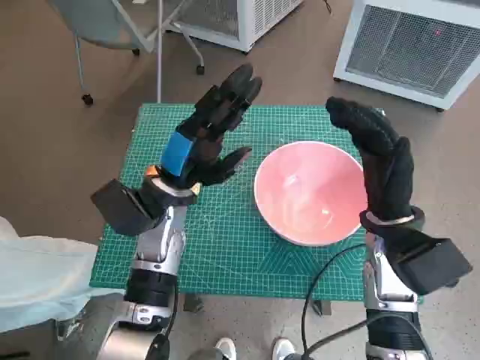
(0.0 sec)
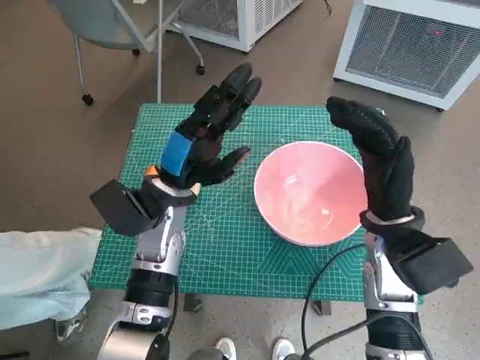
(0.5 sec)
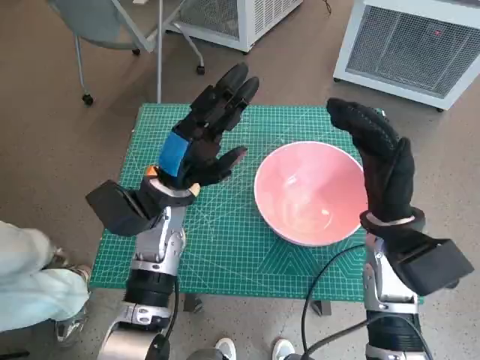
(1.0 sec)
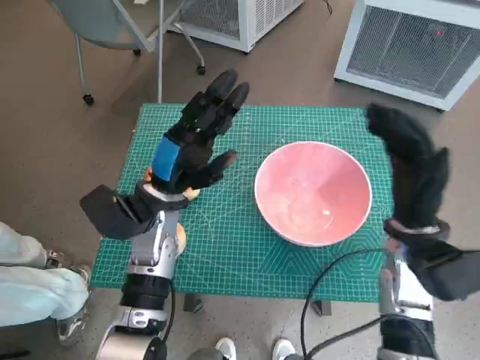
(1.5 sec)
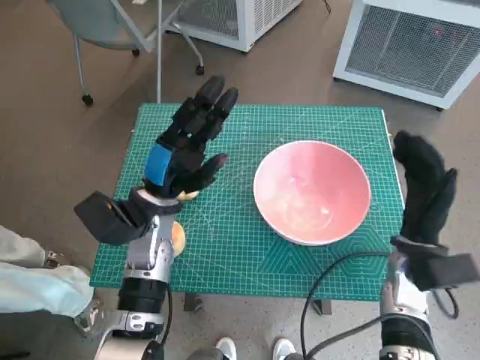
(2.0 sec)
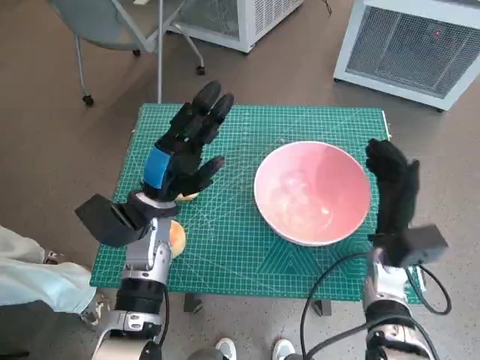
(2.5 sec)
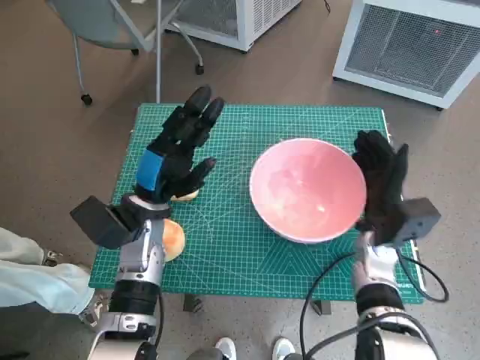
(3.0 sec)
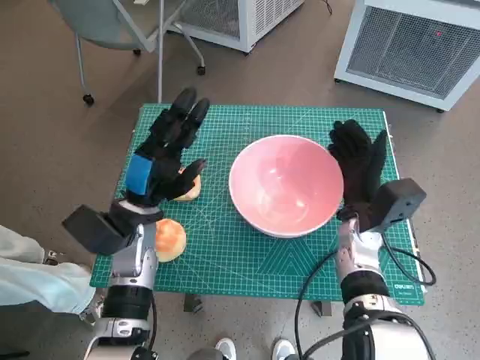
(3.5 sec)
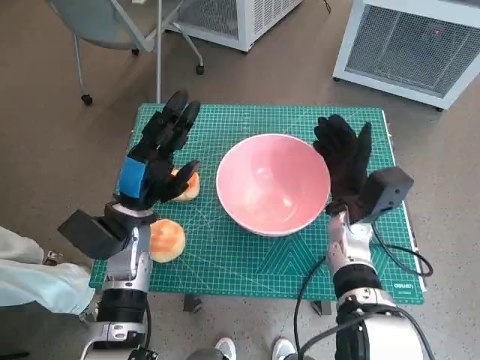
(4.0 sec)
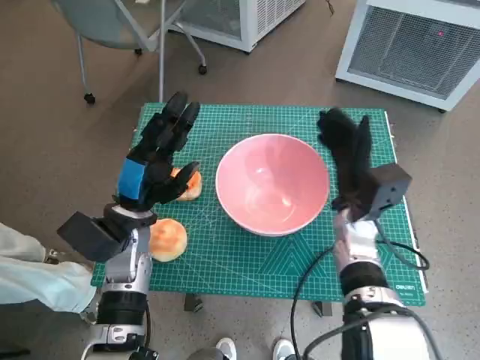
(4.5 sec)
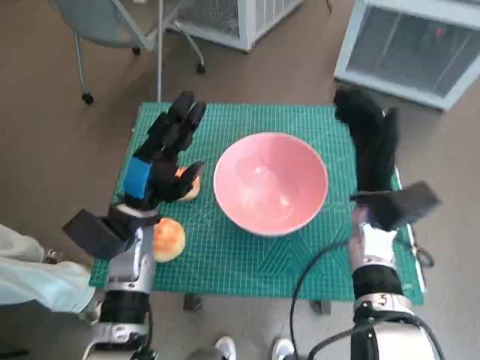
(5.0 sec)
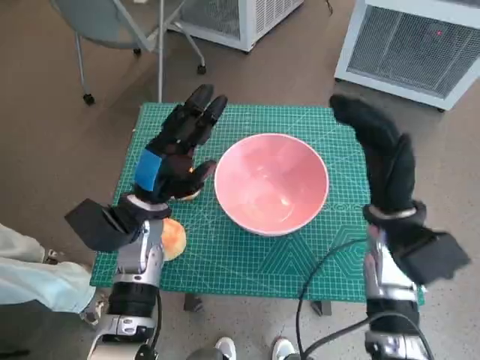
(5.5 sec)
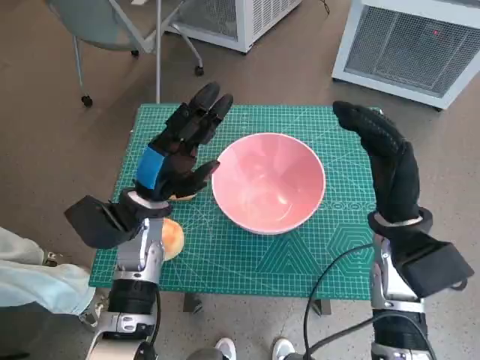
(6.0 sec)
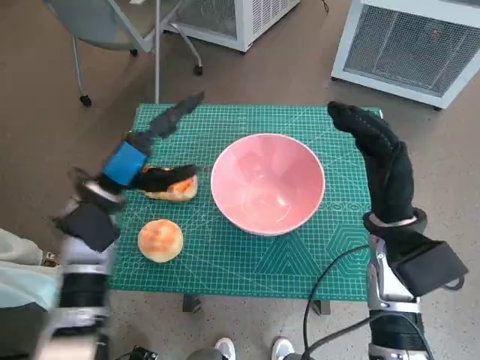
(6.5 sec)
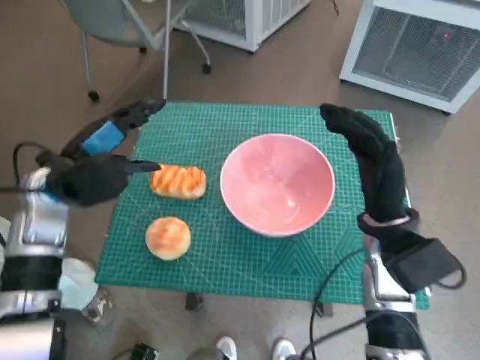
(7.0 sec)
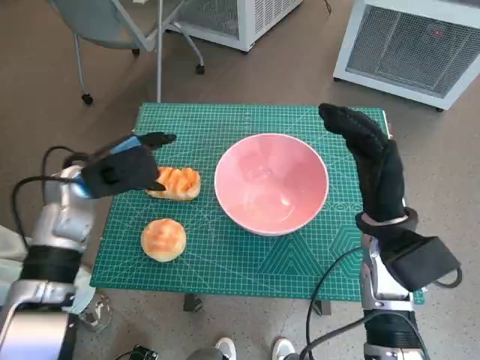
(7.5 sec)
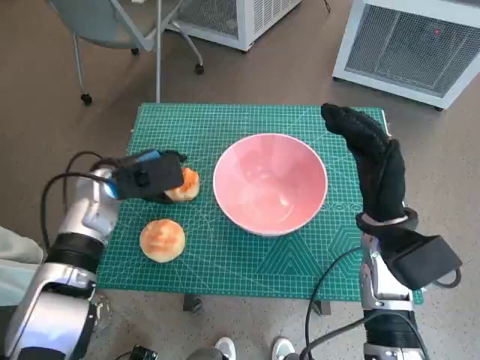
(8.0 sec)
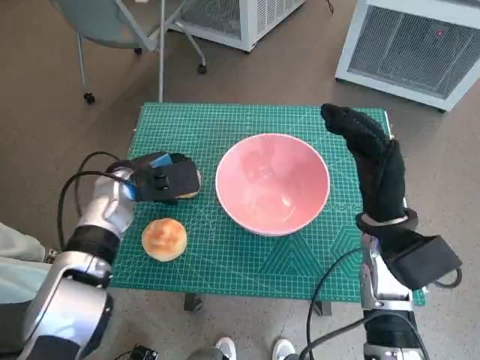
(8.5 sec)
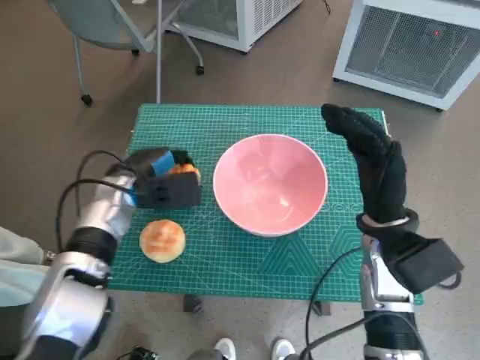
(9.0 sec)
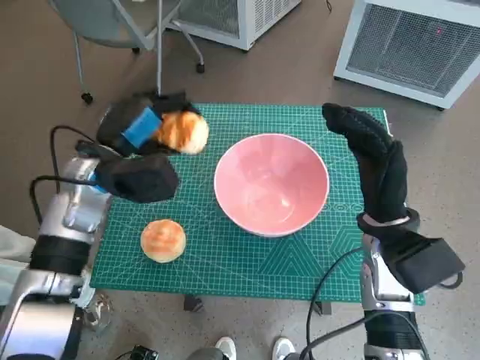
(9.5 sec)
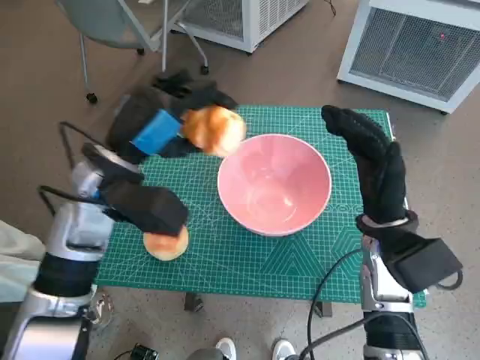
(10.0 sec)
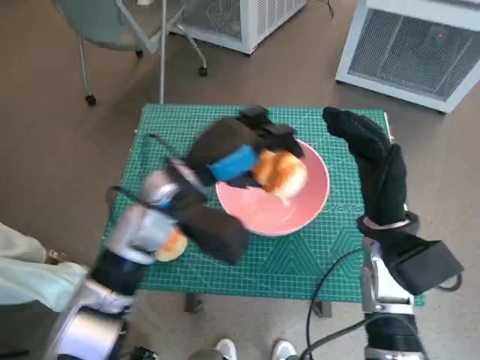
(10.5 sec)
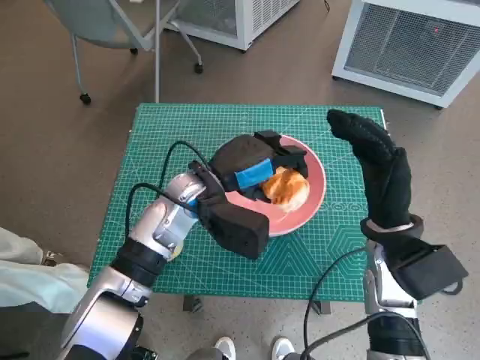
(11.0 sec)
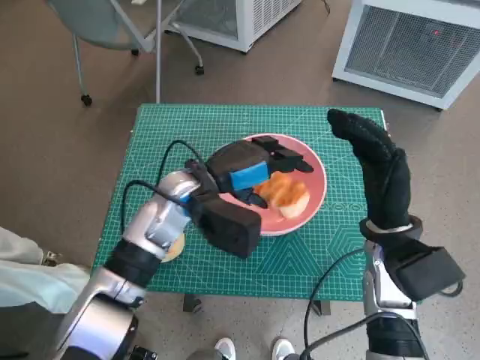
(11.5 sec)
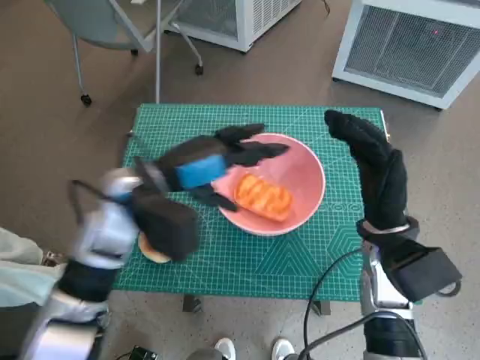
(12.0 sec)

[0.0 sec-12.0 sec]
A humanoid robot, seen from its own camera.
Task of the whole recording: Push the bowl into the center of the table and put the bread into the bowl.
Step, 0.0 sec to 4.0 sec: Move the pink bowl to the center of table with right hand.
Step, 4.5 sec to 8.5 sec: Grasp the long bread with left hand.
Step, 9.0 sec to 11.5 sec: Place the long bread in pink bowl with left hand.
2.0 sec to 4.0 sec: The right hand heads to the left and forward, covering some 10 cm.
4.0 sec to 6.0 sec: The right hand shifts roughly 10 cm upward and backward.
6.0 sec to 8.0 sec: The left hand travels to the left by approximately 5 cm.
8.0 sec to 10.0 sec: The left hand moves upward and to the right, about 10 cm.

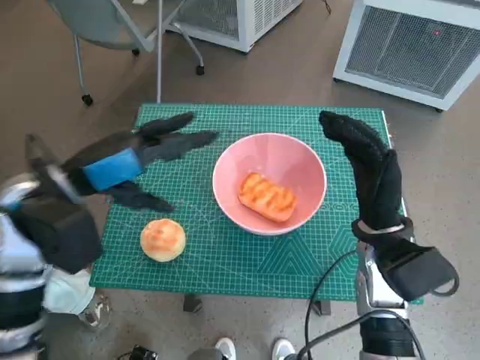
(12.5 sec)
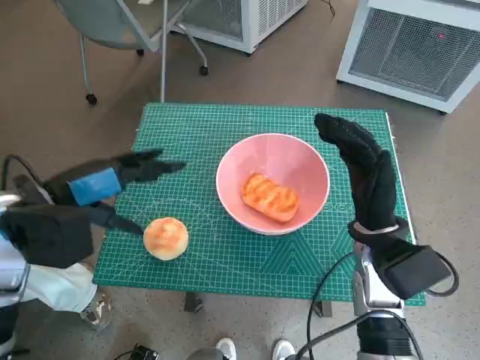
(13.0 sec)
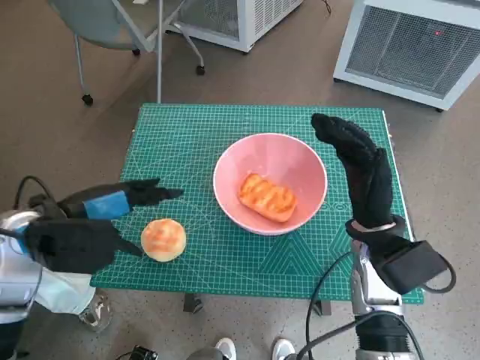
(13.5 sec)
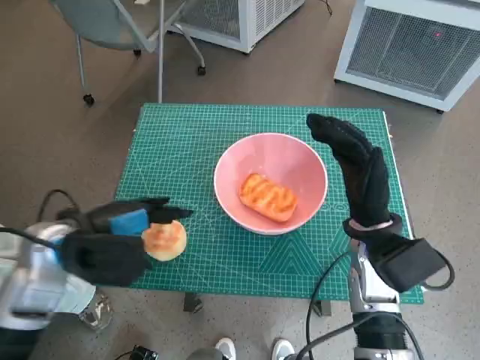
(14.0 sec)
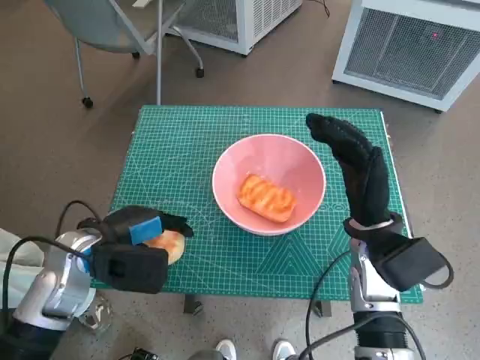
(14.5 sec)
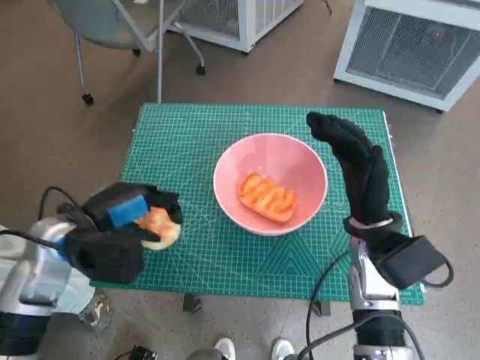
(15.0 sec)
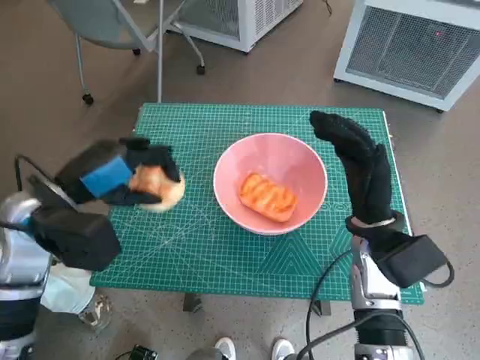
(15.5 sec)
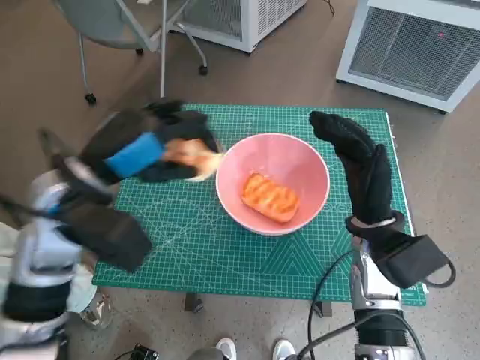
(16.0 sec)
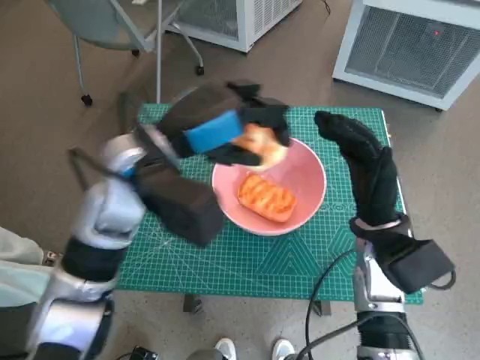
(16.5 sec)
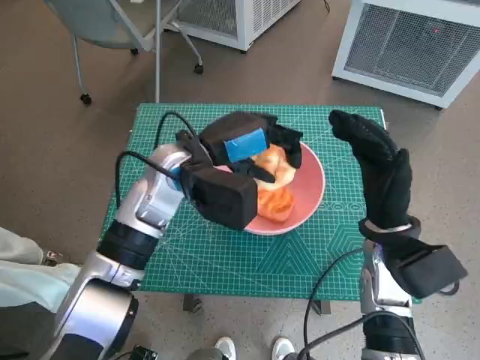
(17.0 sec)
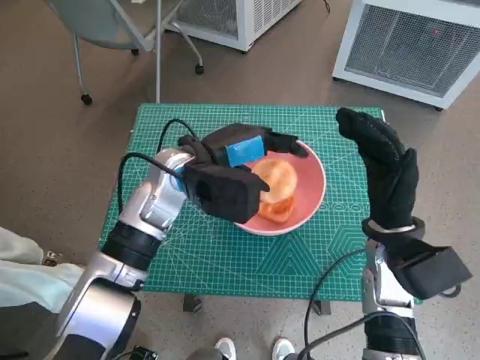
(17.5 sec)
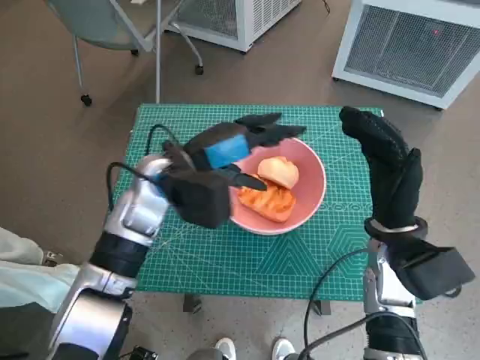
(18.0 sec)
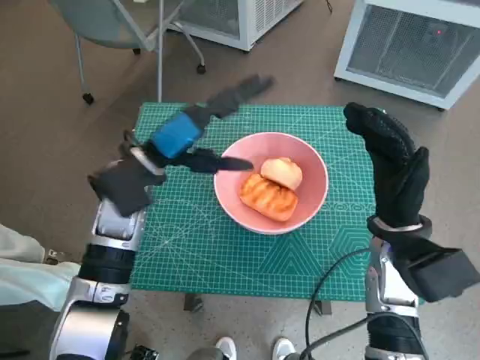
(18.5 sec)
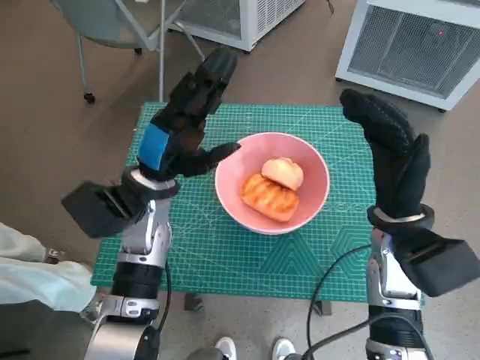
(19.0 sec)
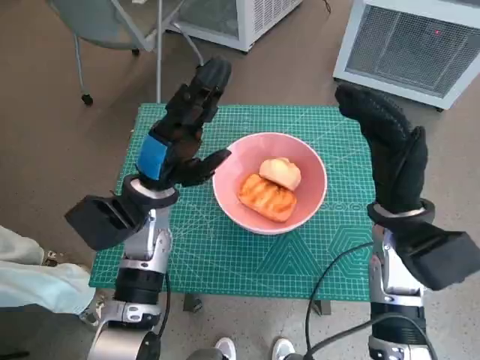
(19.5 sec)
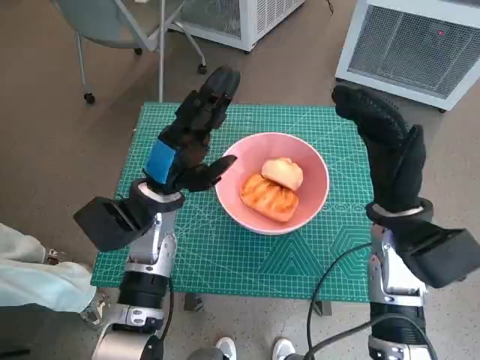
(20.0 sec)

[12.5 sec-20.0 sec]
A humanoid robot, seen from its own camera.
Task of the whole recording: Push the bowl into the center of the table and put the bread into the bowl.
Step, 12.5 sec to 14.0 sec: Grasp the round bread with left hand.
Step, 14.5 sec to 17.5 sec: Place the round bread in pink bowl with left hand.
12.5 sec to 14.5 sec: The left hand goes approximately 10 cm downward.
14.5 sec to 16.5 sec: The left hand heads upward, to the right and forward, covering approximately 15 cm.
16.5 sec to 18.0 sec: The left hand shifts roughly 5 cm downward.
18.0 sec to 20.0 sec: The left hand shifts by roughly 5 cm.

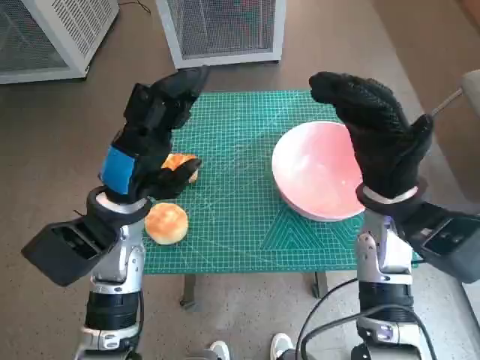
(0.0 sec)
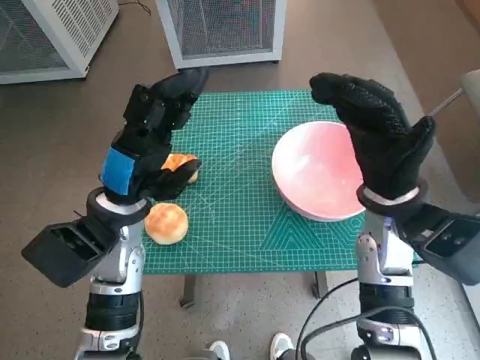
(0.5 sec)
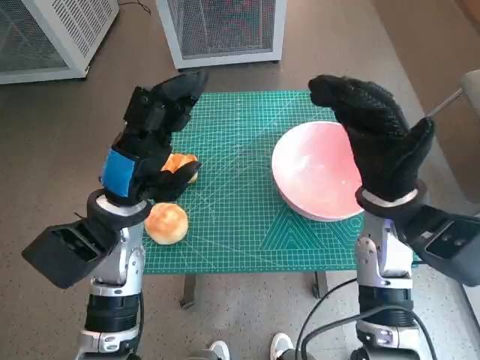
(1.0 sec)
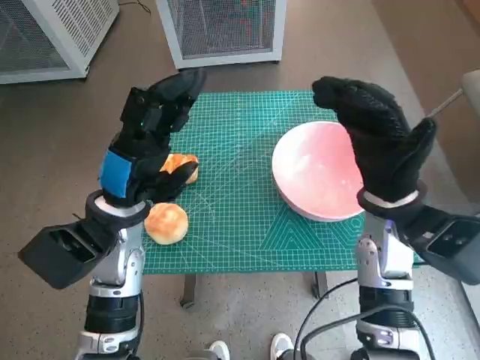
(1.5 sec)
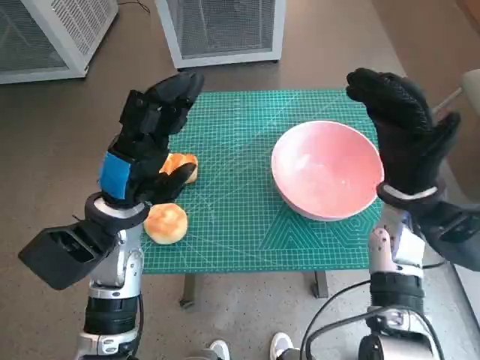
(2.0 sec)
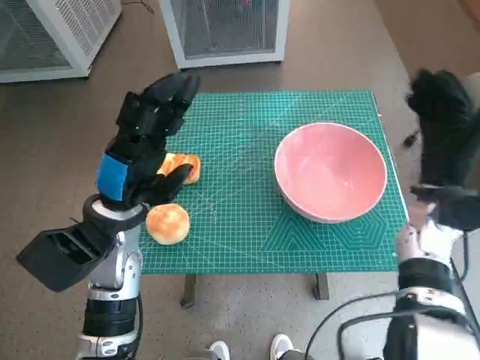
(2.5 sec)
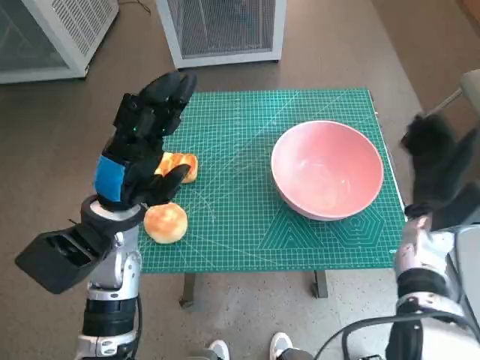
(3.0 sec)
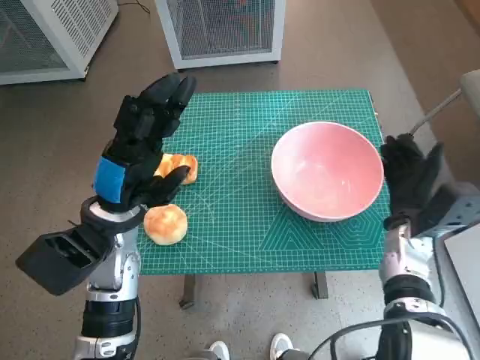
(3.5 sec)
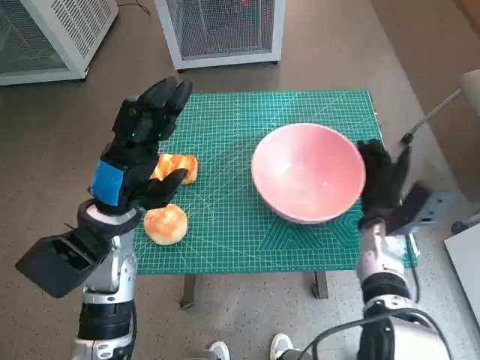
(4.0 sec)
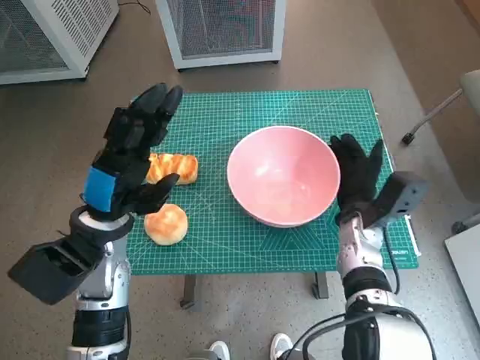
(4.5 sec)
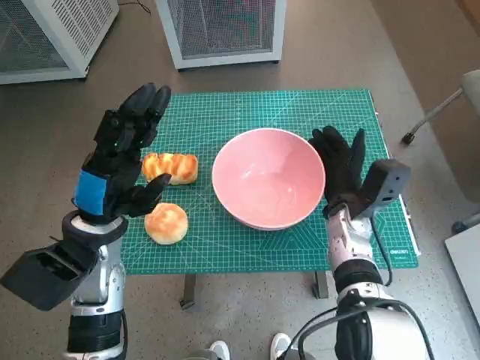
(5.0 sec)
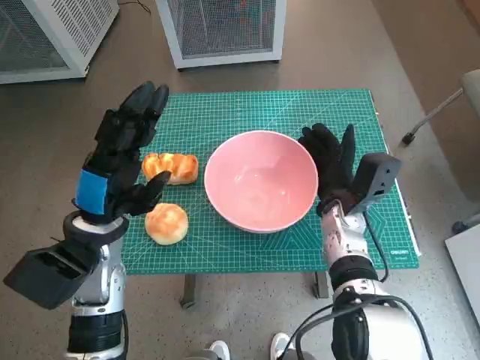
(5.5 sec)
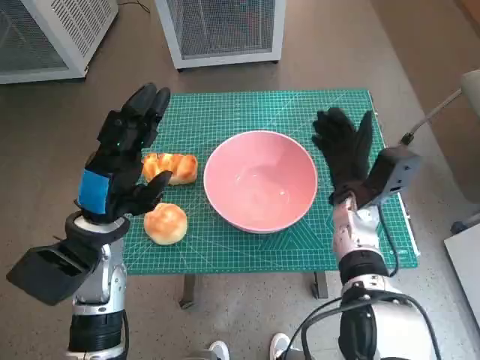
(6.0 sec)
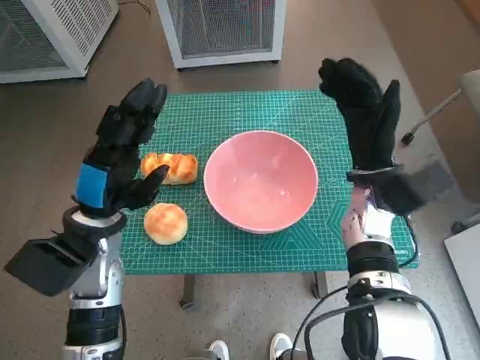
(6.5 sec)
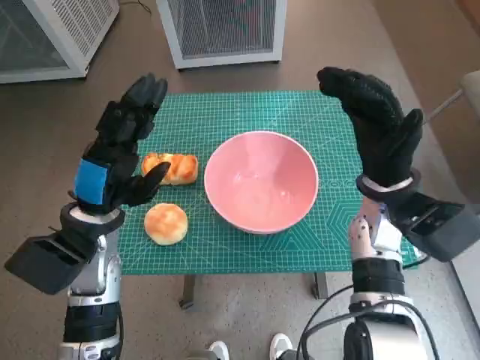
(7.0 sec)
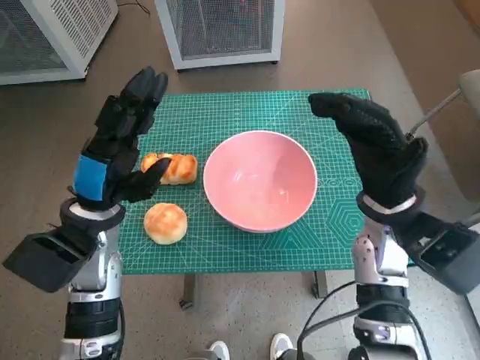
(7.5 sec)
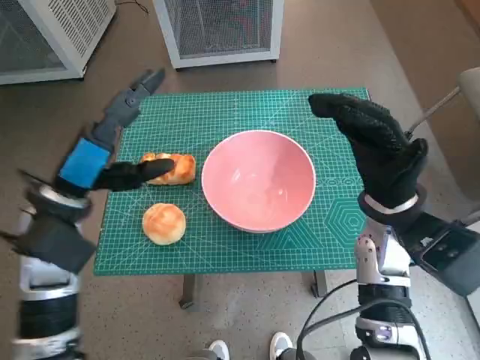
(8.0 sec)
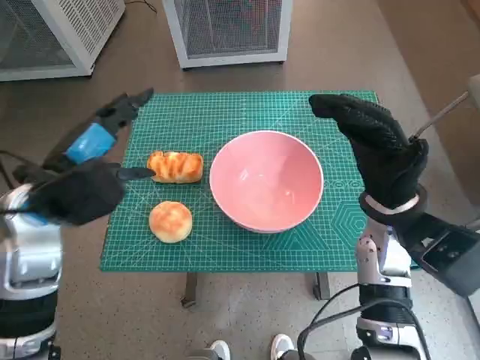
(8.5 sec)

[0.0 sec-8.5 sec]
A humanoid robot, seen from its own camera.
Task of the whole recording: Push the bowl into the center of the table and put the bread into the bowl.
Step, 0.0 sec to 6.0 sec: Move the pink bowl to the center of table with right hand.
2.0 sec to 4.0 sec: The right hand is displaced downward by some 10 cm.
4.0 sec to 6.5 sec: The right hand shifts roughly 10 cm upward.
6.5 sec to 8.5 sec: The right hand shifts by some 5 cm. The left hand heads upward, covering about 5 cm.
